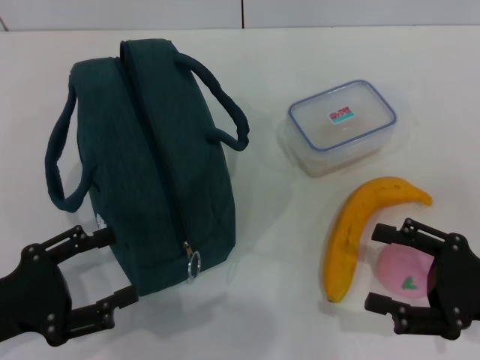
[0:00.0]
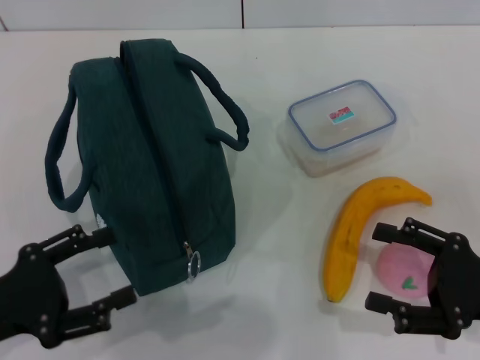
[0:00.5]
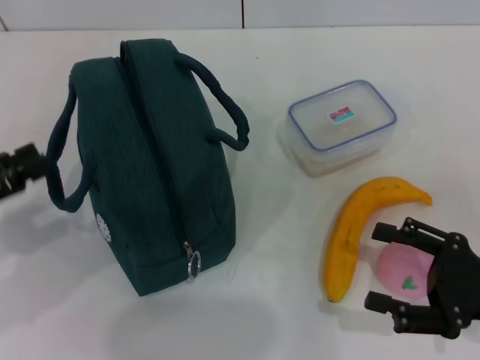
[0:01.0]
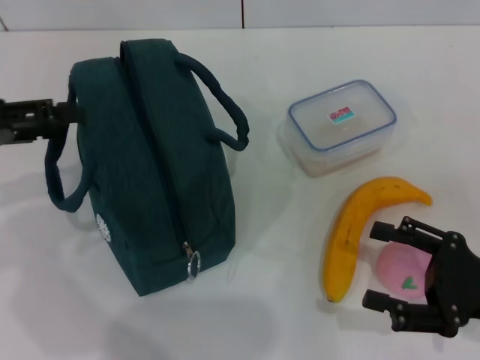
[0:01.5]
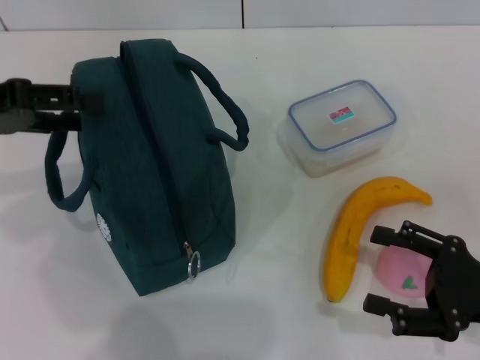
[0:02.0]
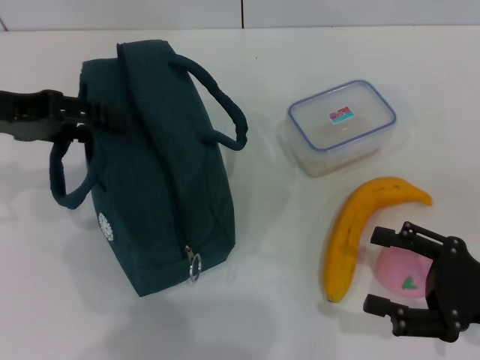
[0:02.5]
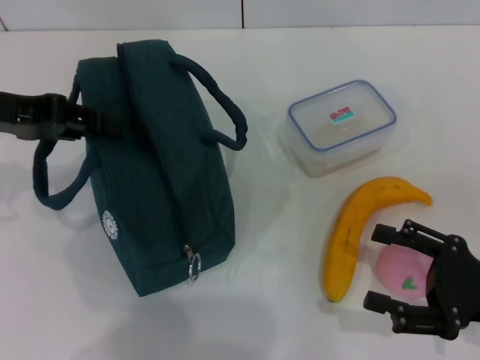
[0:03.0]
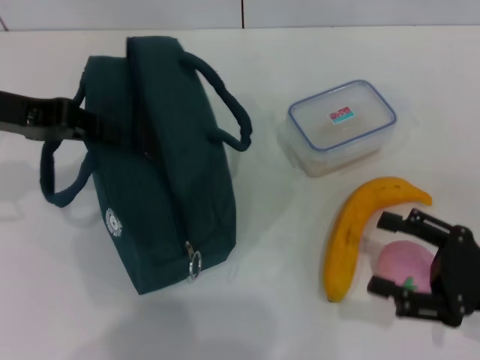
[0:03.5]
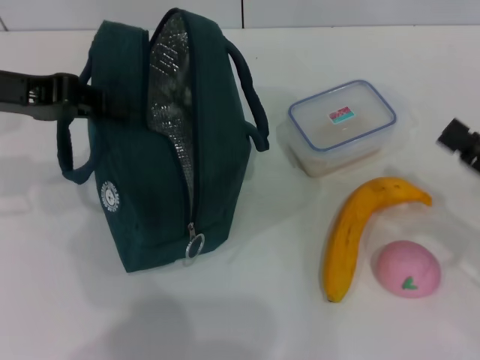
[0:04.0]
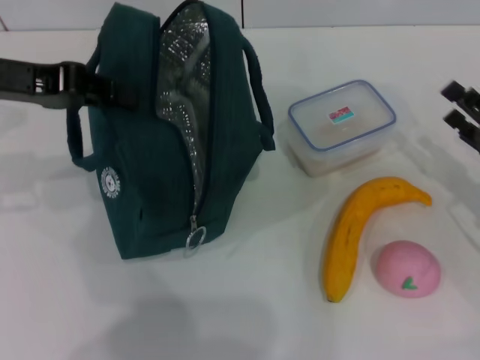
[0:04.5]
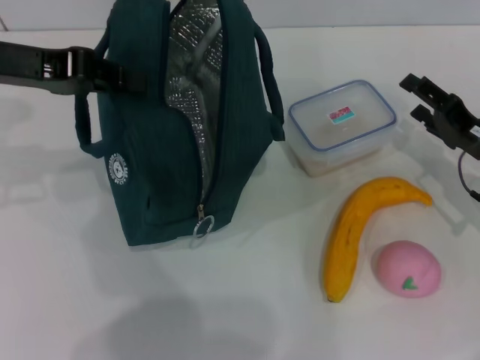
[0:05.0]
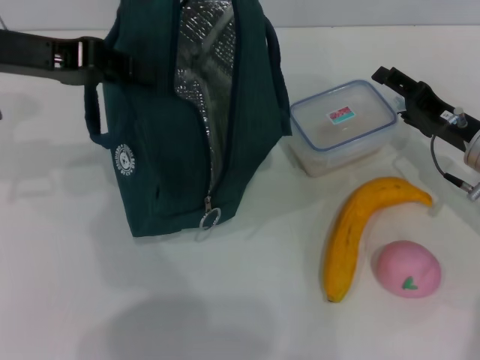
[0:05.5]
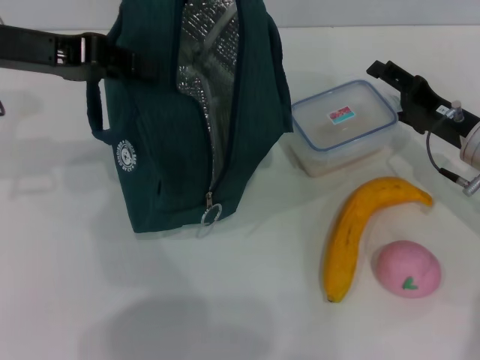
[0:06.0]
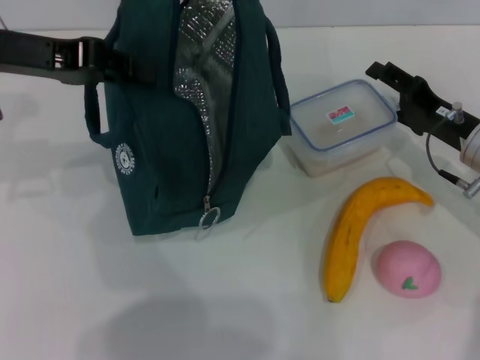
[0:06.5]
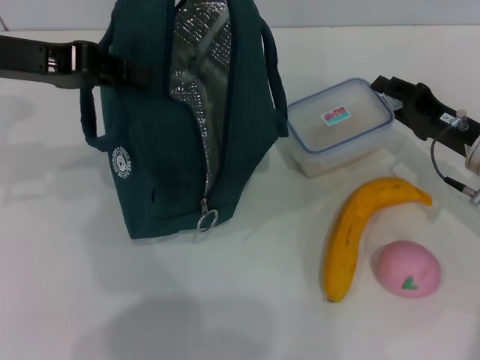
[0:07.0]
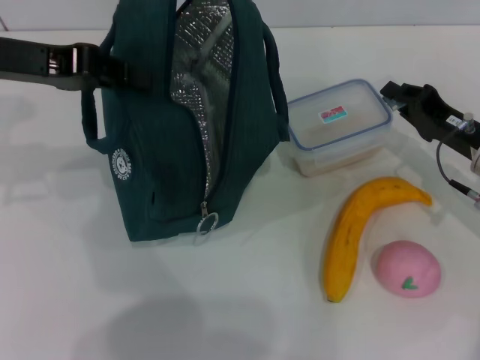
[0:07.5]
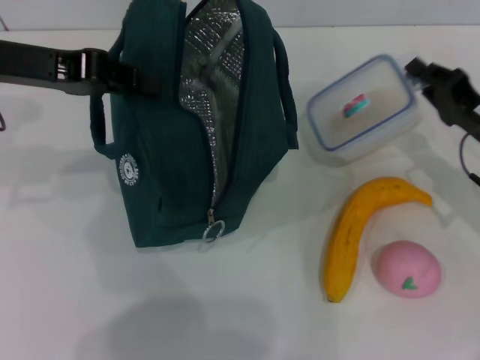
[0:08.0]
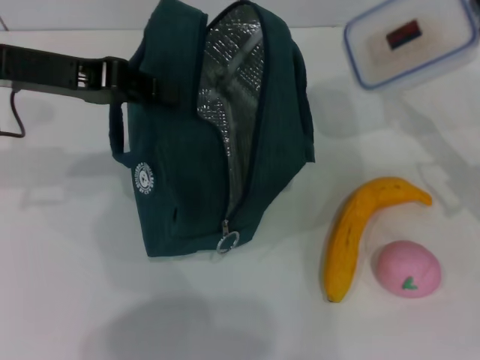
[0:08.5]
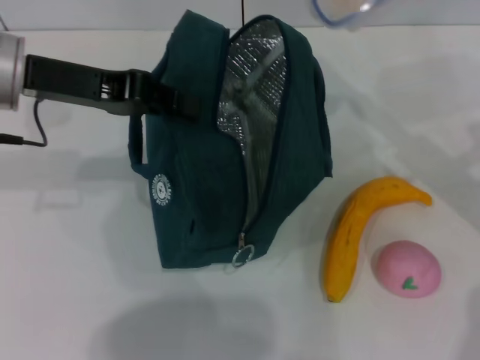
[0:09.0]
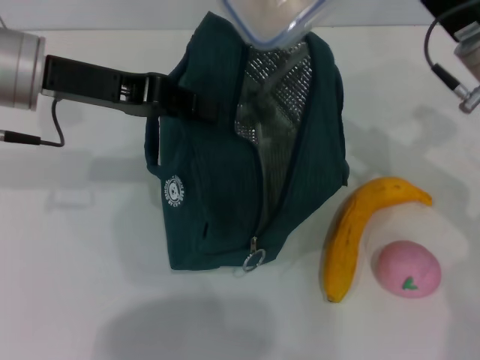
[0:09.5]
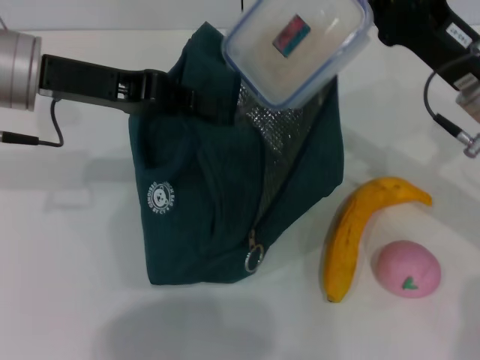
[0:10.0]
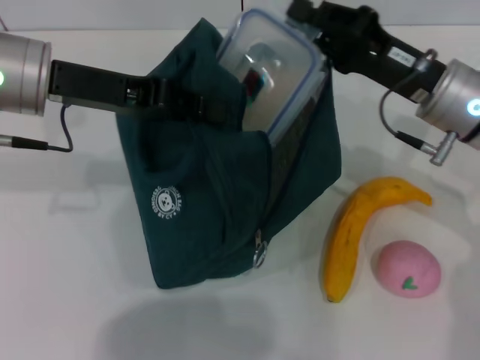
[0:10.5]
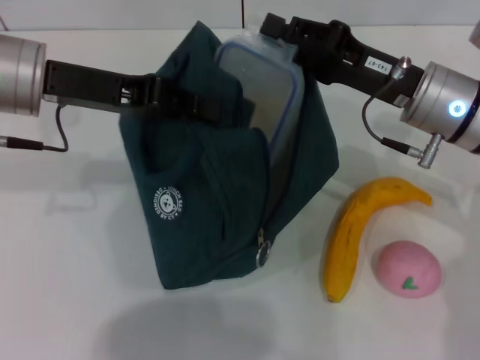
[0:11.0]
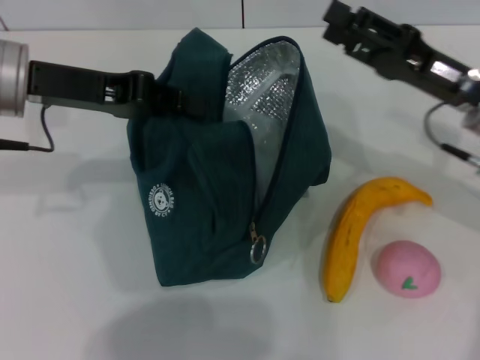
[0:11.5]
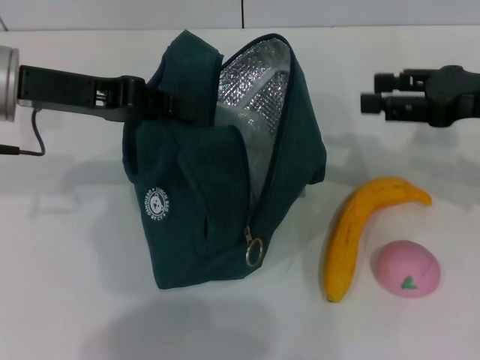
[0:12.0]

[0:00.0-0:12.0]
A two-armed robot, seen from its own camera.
Step, 0:00.0 to 0:04.5: Hold the lunch bag with your left hand.
Step, 0:05.0 to 0:07.5: Pick up the lunch box with your right hand.
Step, 0:08.0 to 0:11.0: Place the lunch box into the lunch bag with your right hand.
0:00.0 to 0:02.0: The left gripper travels forward and upward by some 20 cm.
0:02.0 to 0:04.0: The left gripper closes its fingers.
0:04.0 to 0:06.0: The right gripper goes roughly 15 cm forward and to the left.
0:06.0 to 0:08.0: The right gripper closes up.
0:08.0 to 0:10.0: The right gripper moves upward and to the left, roughly 10 cm.
0:10.0 to 0:12.0: The right gripper moves to the right and upward, approximately 10 cm, and opens up.

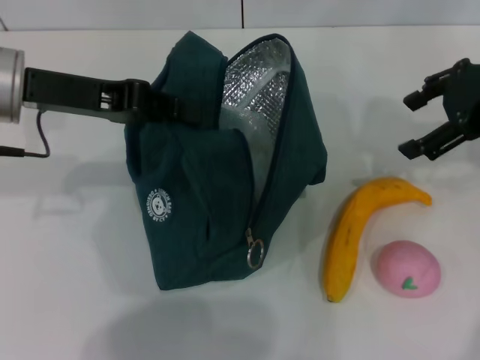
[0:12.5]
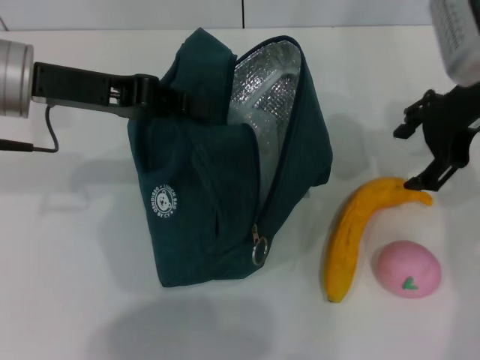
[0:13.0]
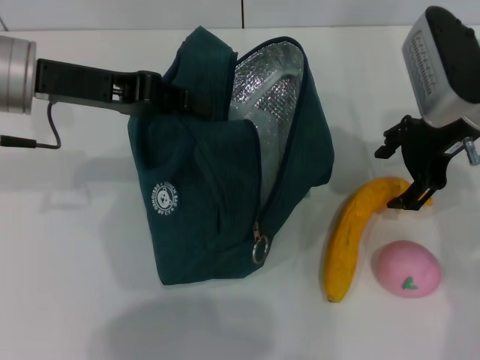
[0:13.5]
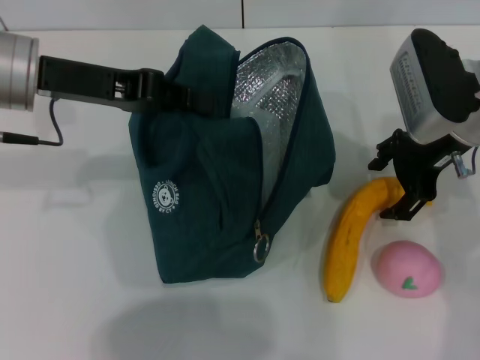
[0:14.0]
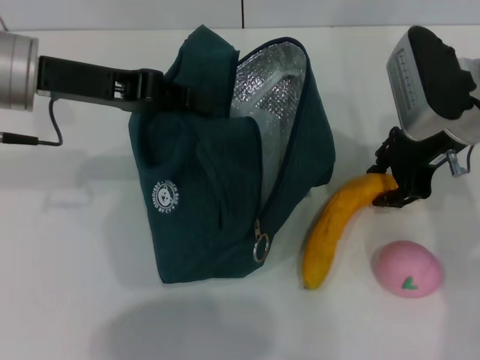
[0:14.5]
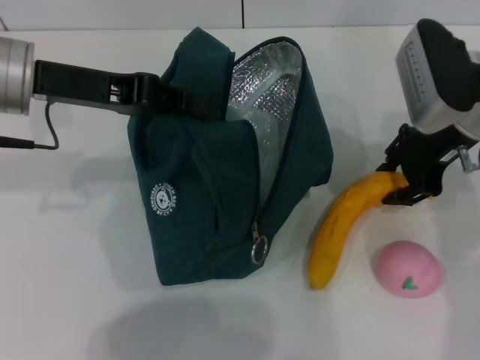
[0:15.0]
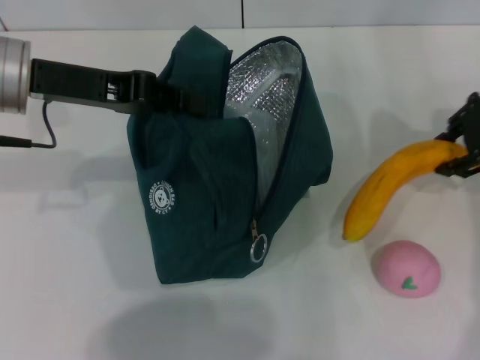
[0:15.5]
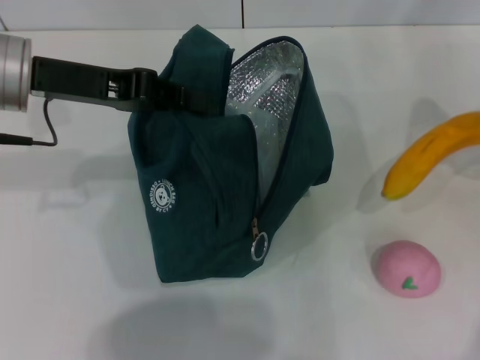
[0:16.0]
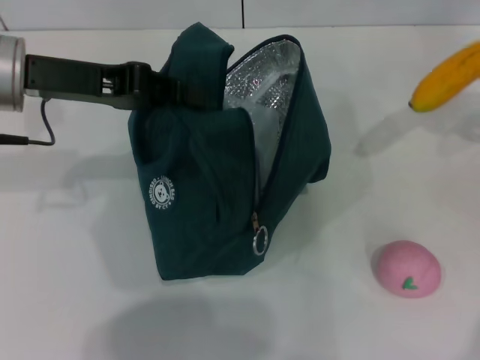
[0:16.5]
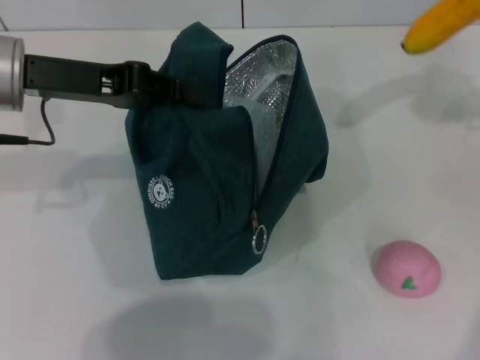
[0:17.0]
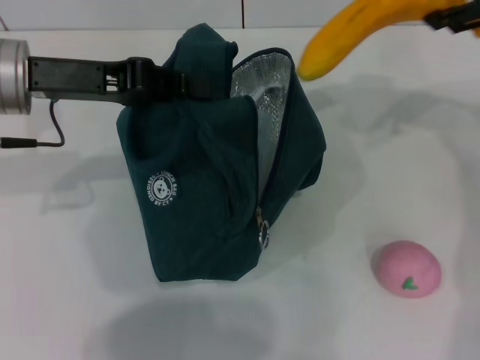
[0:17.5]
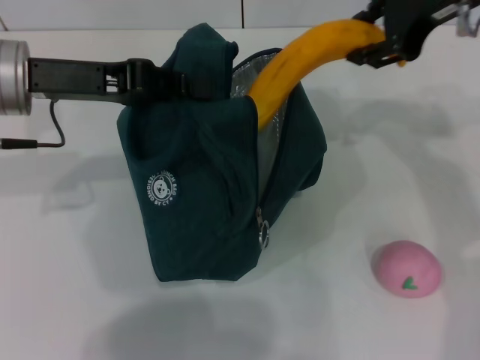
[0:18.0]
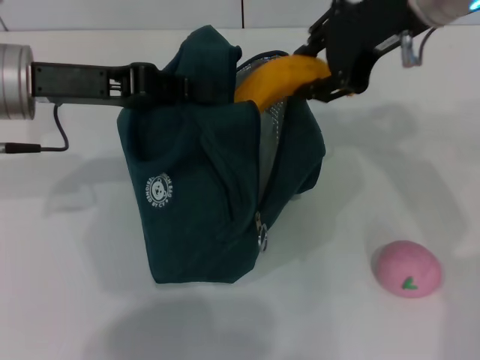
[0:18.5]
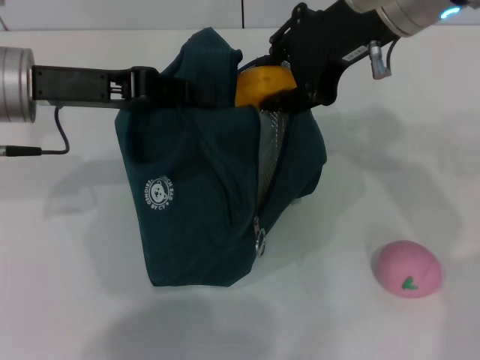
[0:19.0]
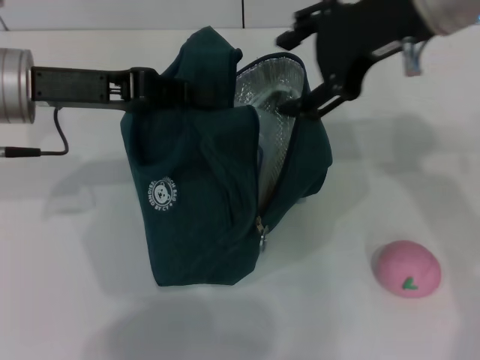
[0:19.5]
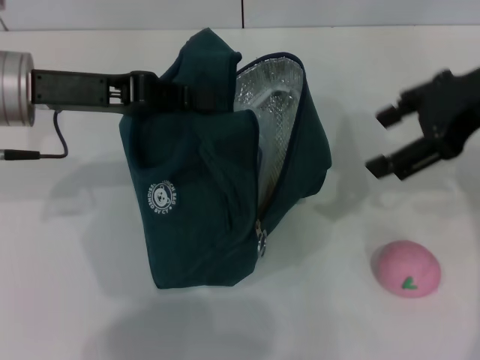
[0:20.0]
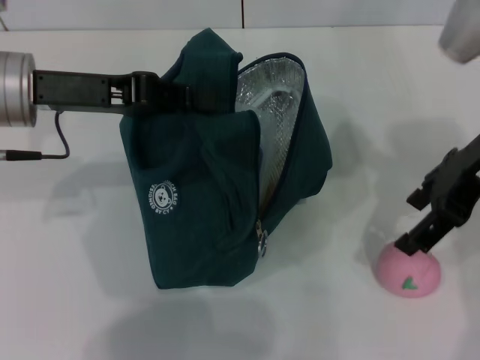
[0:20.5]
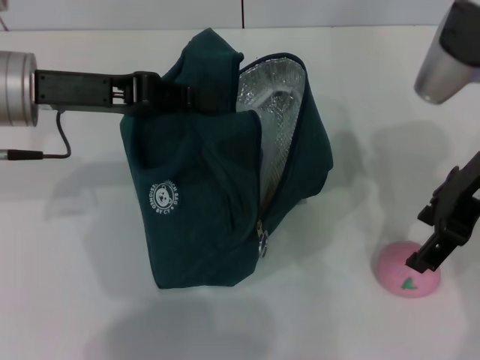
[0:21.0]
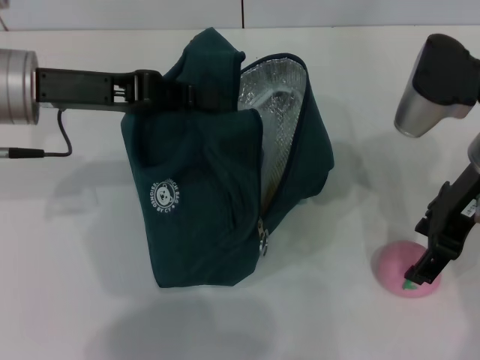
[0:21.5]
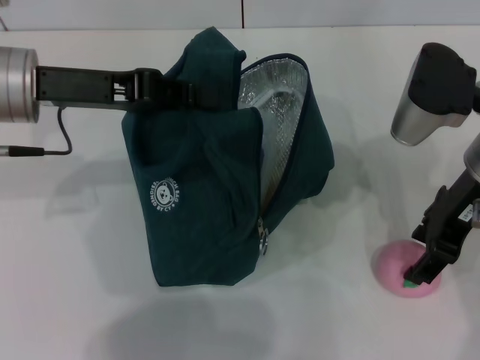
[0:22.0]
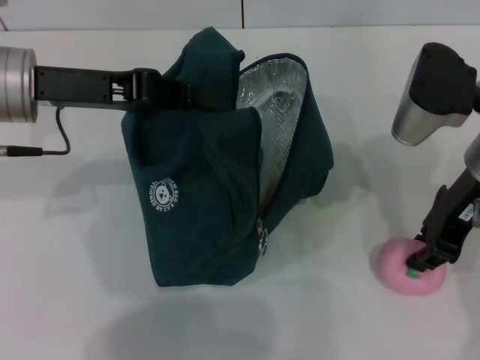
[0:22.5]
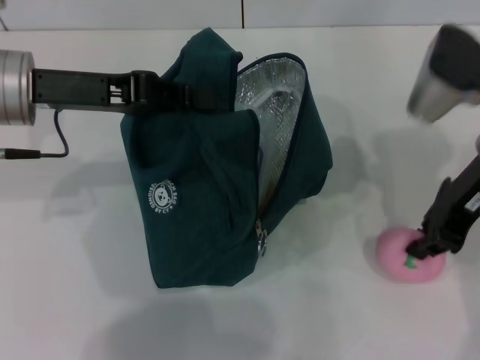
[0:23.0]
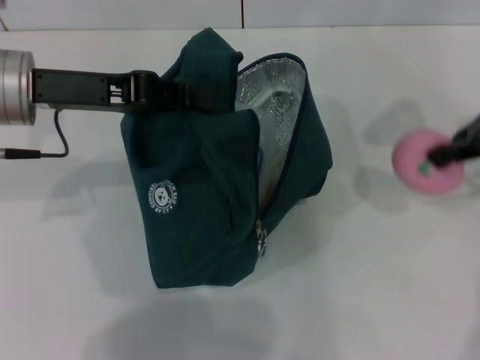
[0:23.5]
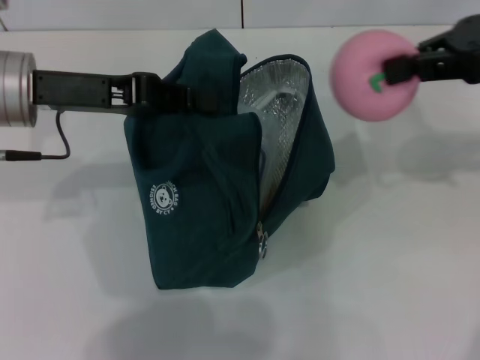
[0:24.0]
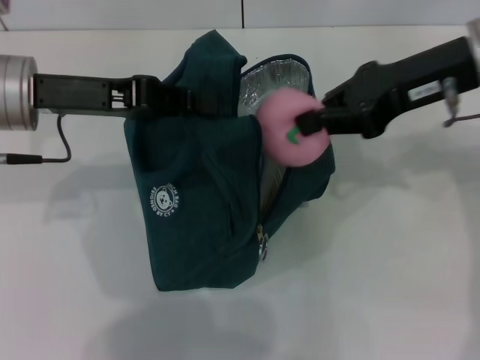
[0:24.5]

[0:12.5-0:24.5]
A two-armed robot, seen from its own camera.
Step, 0:12.5 to 0:14.5: Take the banana with your right hand.
Step, 0:15.0 to 0:19.5: Put the banana into the lunch bag with your right hand.
Step, 0:20.0 to 0:22.5: Grab the peach with your right hand.
0:12.5 to 0:14.5: The right gripper goes roughly 10 cm downward and to the left.
0:14.5 to 0:16.5: The right gripper heads to the right and upward, covering roughly 20 cm.
0:16.5 to 0:18.5: The right gripper heads to the left, covering some 20 cm.
0:18.5 to 0:20.5: The right gripper goes about 10 cm to the right and downward, and opens up.
0:20.5 to 0:22.5: The right gripper shifts about 5 cm downward, and closes up.
0:22.5 to 0:24.5: The right gripper moves upward, approximately 5 cm.

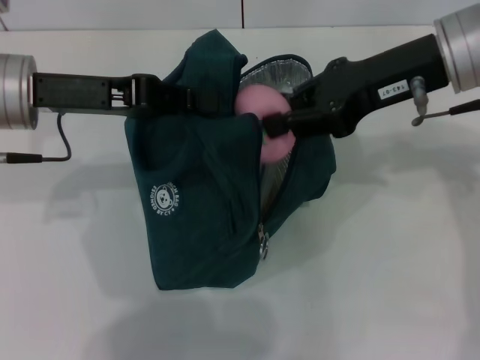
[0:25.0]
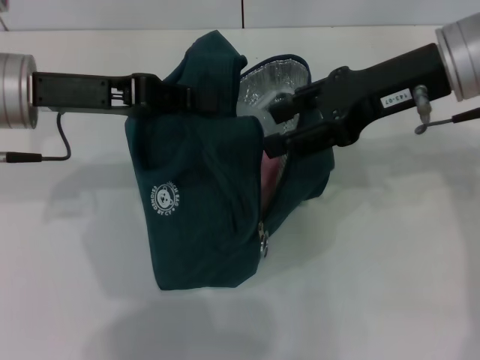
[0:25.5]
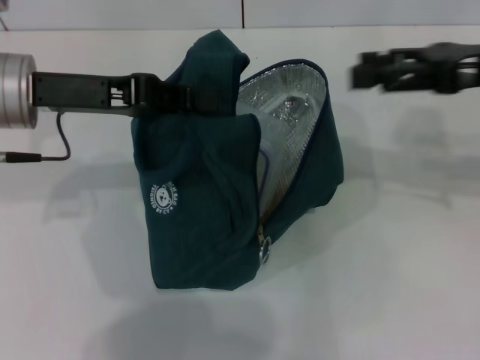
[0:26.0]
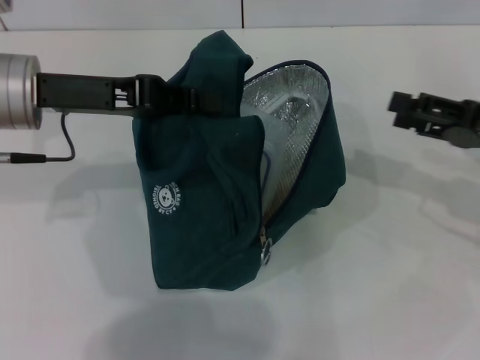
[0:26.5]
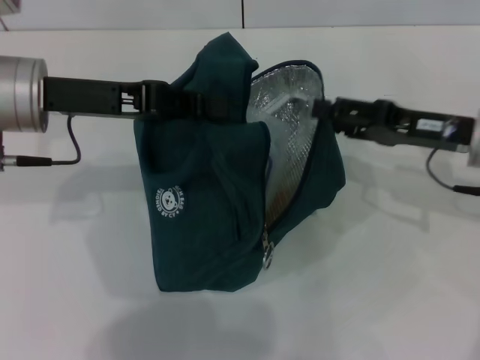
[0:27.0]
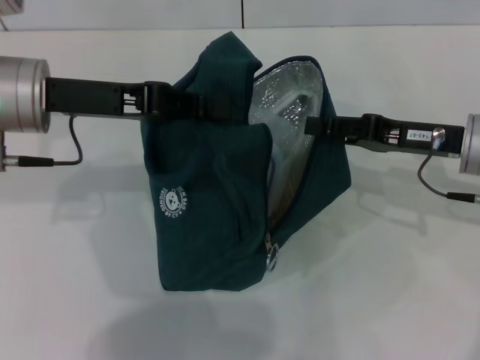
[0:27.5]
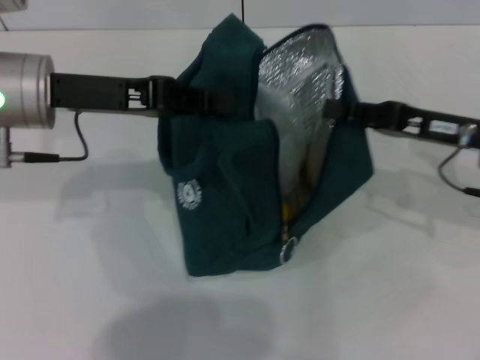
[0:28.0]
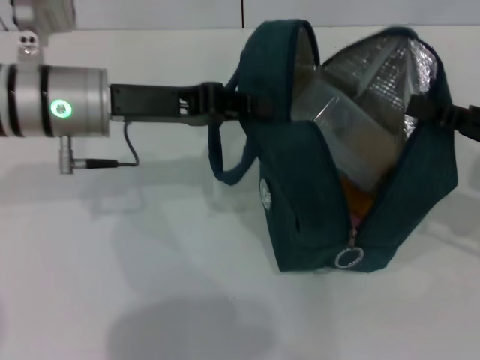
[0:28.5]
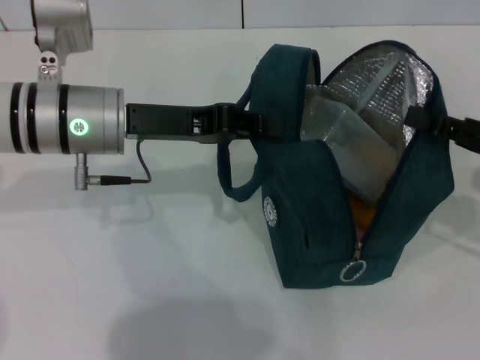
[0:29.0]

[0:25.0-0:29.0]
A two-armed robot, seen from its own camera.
0:25.0 to 0:27.0: The right gripper moves downward and to the right, roughly 15 cm, and opens up.
0:27.0 to 0:29.0: The right gripper heads to the right and backward, covering about 10 cm, and closes its fingers. The left gripper heads to the right, covering roughly 5 cm.
